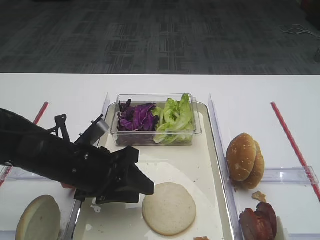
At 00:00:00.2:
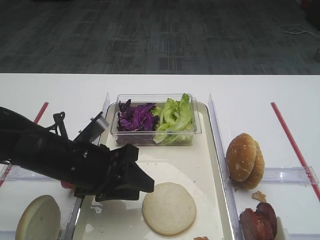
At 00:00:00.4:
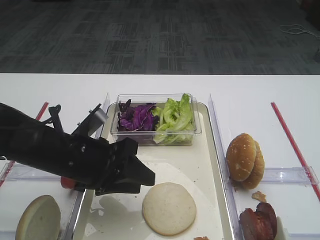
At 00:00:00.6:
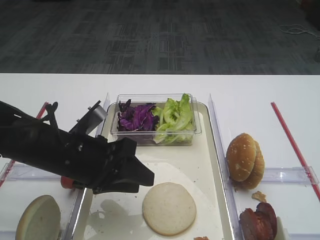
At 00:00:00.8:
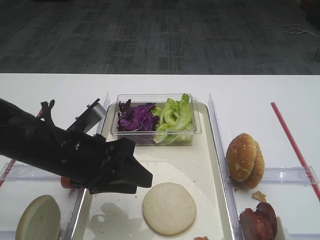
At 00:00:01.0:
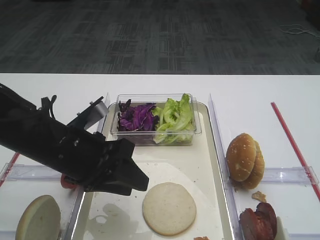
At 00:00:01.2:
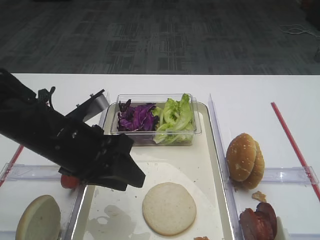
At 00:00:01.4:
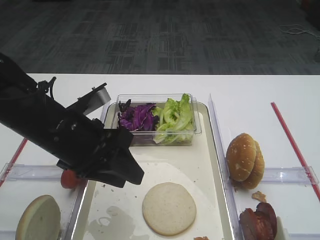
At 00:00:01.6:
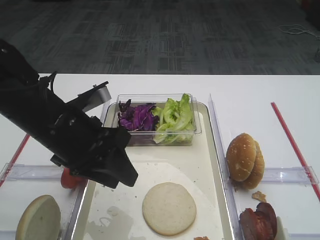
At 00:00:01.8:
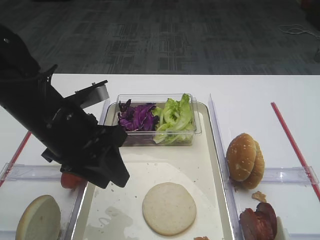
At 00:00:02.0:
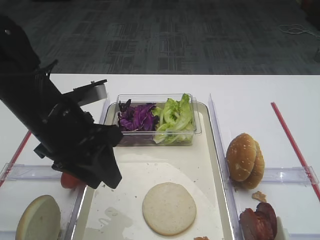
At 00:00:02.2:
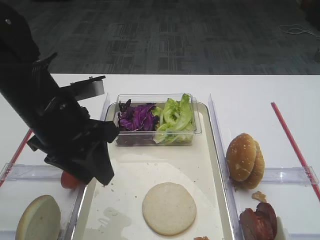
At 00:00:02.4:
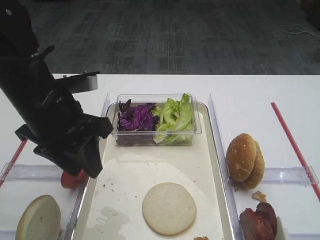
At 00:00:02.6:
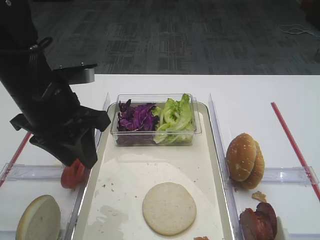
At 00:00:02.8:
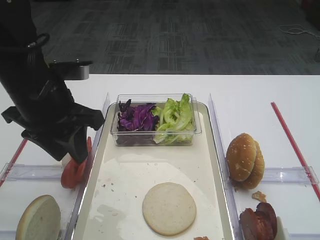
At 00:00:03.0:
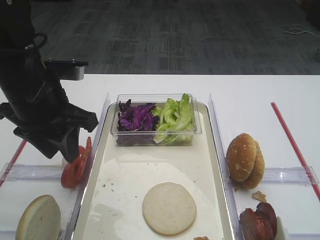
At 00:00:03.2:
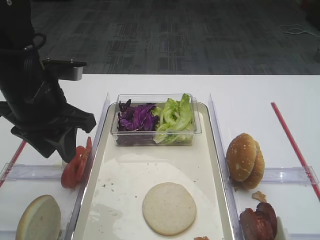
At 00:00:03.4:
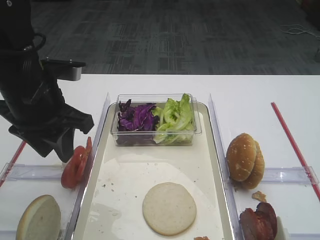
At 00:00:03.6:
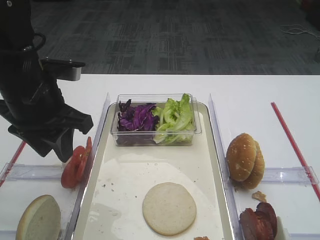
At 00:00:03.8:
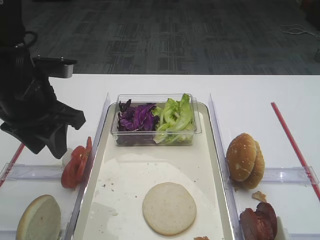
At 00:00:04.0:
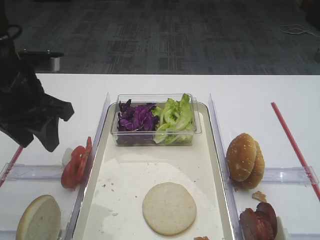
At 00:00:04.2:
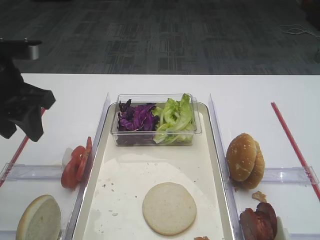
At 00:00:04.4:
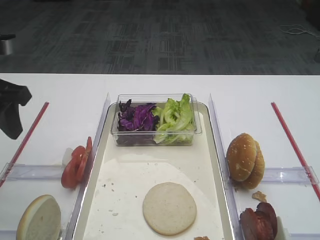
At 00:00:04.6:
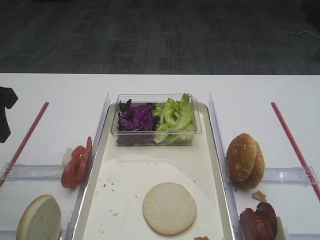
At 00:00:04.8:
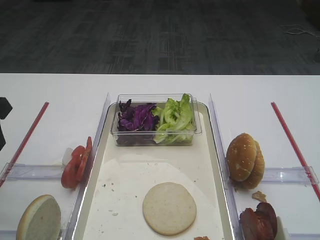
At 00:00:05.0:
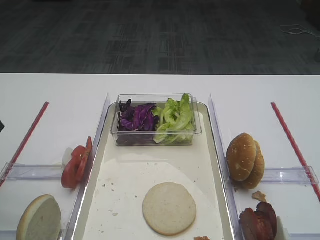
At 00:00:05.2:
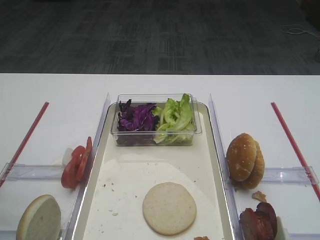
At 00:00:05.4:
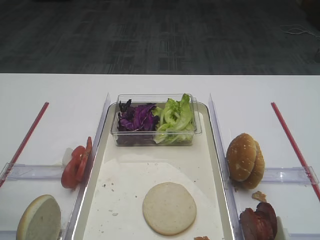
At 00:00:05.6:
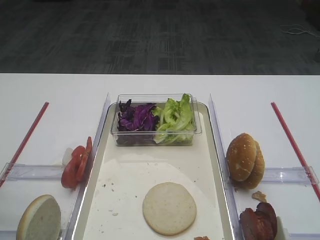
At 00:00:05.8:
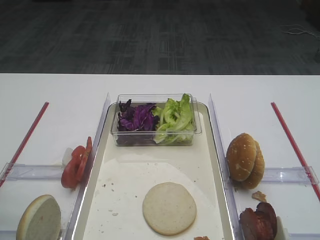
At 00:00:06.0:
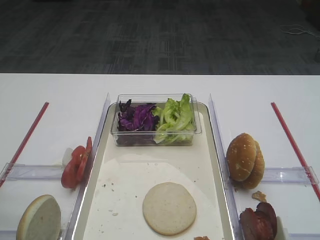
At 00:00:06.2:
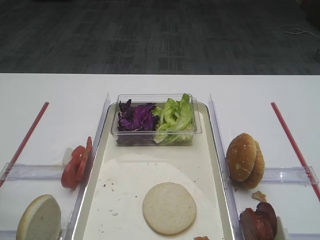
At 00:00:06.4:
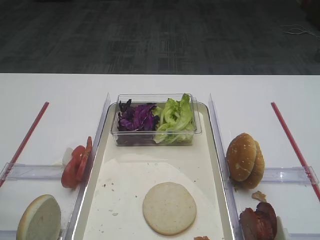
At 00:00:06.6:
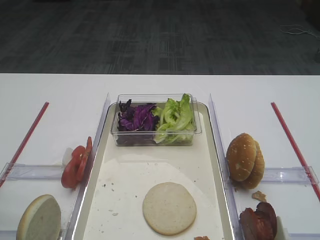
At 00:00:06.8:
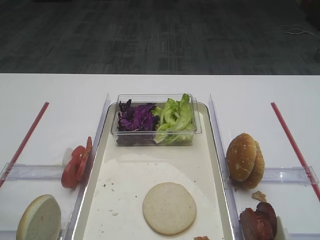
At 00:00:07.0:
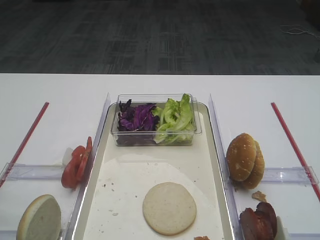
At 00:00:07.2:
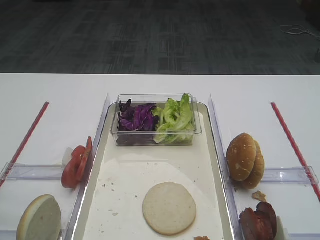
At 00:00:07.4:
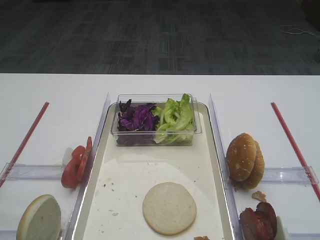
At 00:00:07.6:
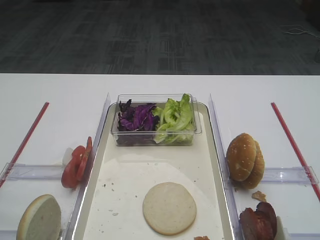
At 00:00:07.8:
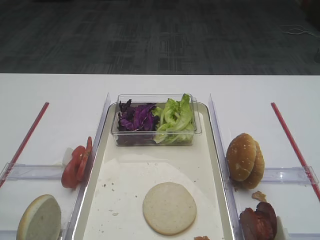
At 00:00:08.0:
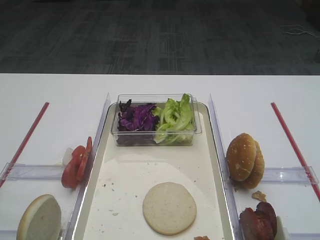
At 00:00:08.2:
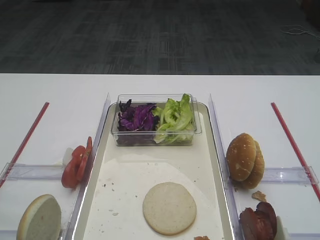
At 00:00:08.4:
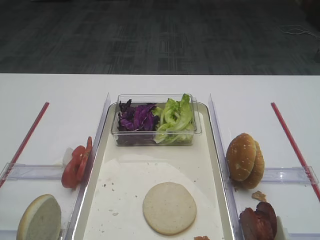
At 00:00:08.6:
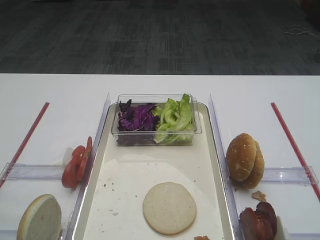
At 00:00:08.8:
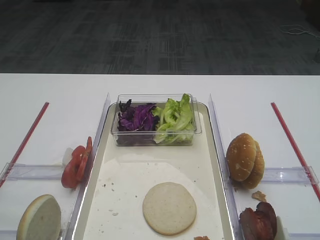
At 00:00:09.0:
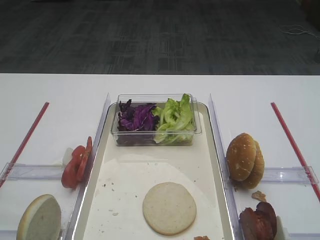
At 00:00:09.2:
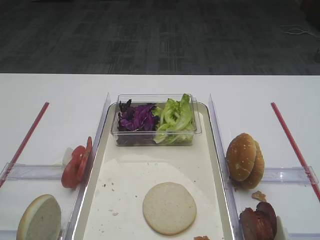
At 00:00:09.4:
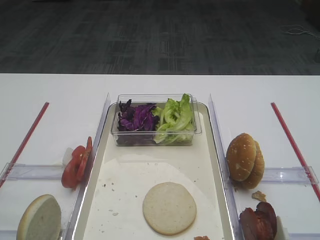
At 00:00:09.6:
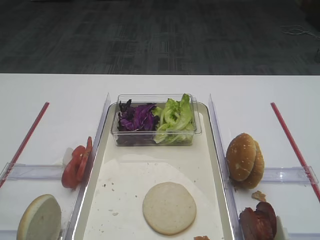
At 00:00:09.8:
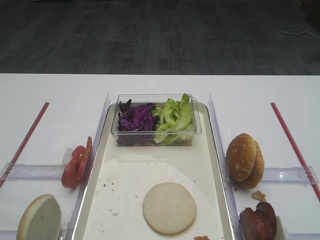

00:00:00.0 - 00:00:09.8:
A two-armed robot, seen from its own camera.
00:00:00.0 - 00:00:01.4: The left gripper goes roughly 5 cm upward.
00:00:01.4 - 00:00:02.8: The left gripper travels upward by roughly 5 cm.
00:00:02.8 - 00:00:04.2: The left gripper heads to the left, covering about 5 cm.
00:00:04.2 - 00:00:05.6: The left gripper travels backward by approximately 10 cm.

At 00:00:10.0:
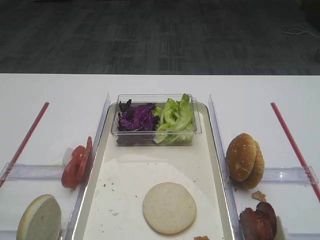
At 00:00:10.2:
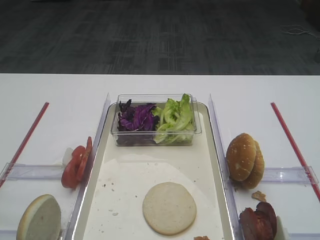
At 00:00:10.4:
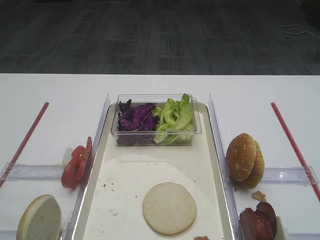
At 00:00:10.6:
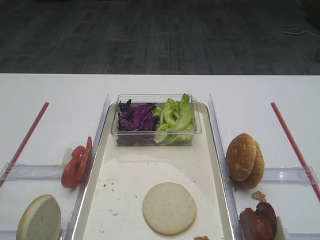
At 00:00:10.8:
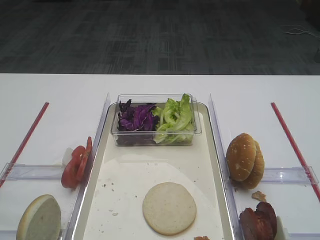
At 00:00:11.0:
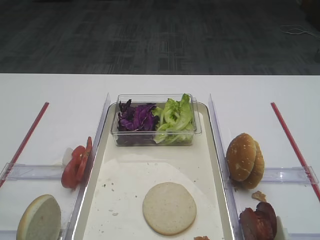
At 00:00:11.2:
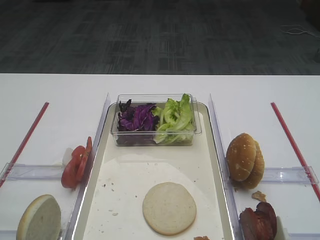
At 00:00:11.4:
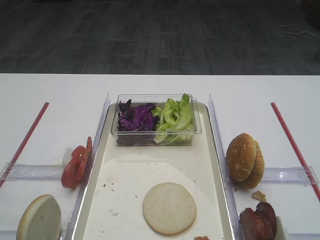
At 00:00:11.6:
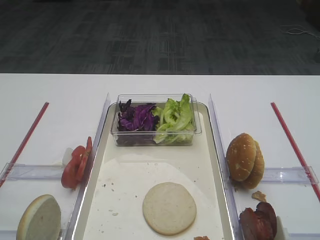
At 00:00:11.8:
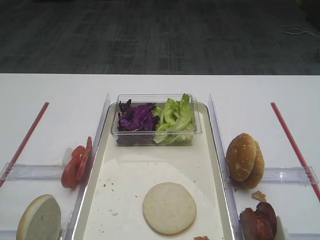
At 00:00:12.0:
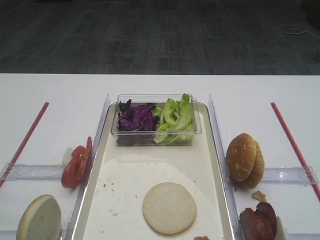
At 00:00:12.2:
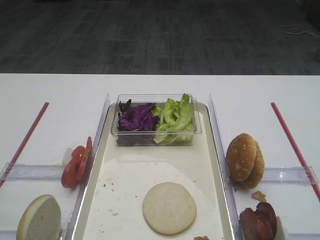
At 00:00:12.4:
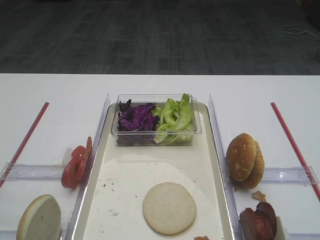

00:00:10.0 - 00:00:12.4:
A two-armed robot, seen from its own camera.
00:00:10.0 - 00:00:12.4: Both grippers stay put.
